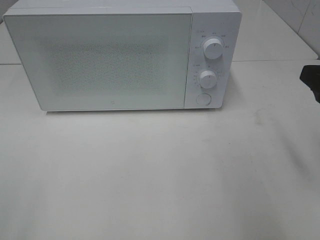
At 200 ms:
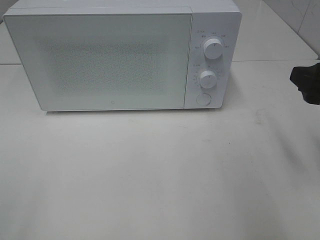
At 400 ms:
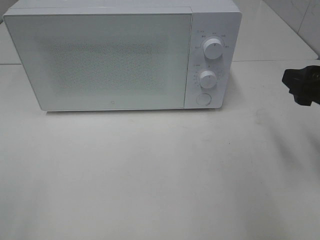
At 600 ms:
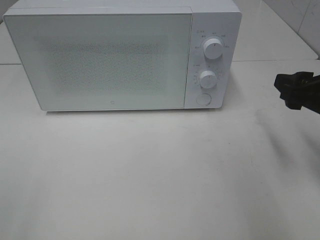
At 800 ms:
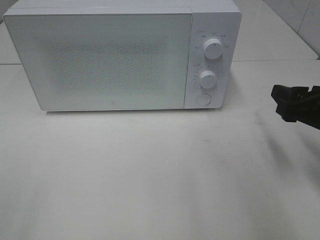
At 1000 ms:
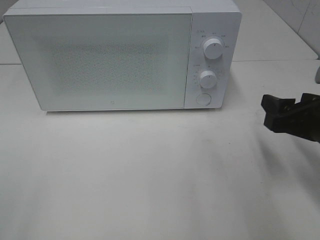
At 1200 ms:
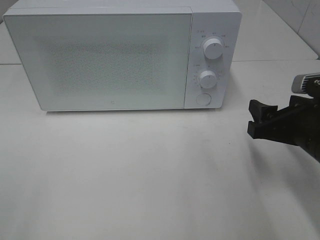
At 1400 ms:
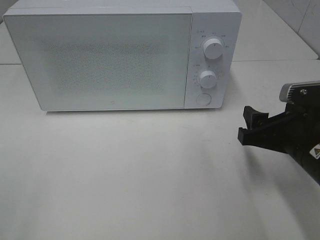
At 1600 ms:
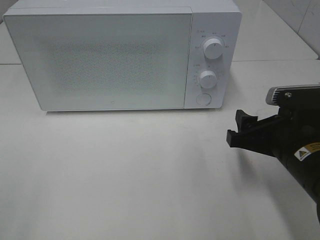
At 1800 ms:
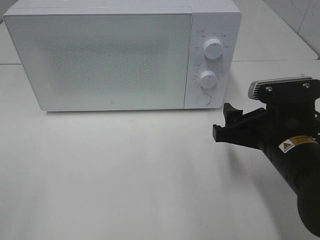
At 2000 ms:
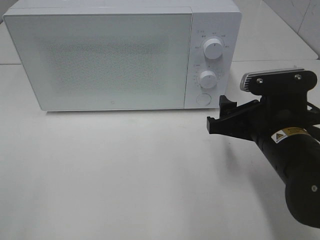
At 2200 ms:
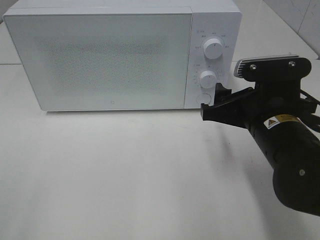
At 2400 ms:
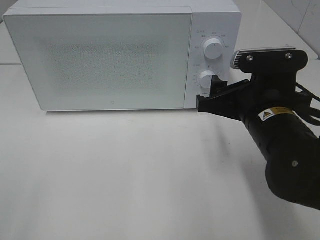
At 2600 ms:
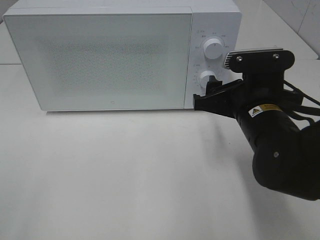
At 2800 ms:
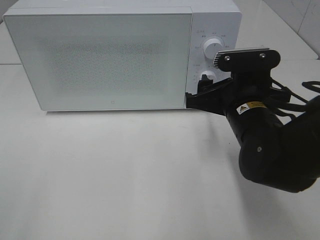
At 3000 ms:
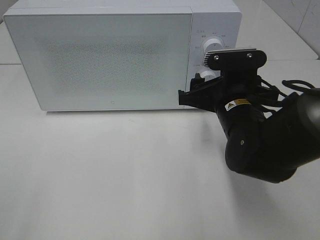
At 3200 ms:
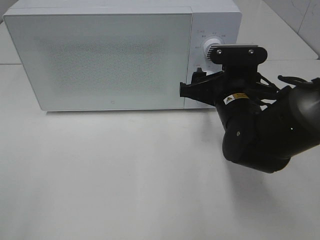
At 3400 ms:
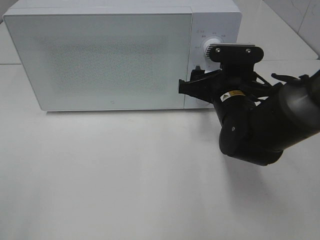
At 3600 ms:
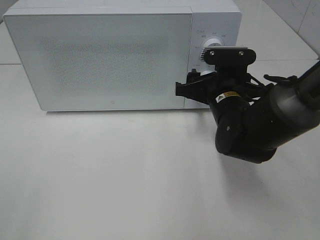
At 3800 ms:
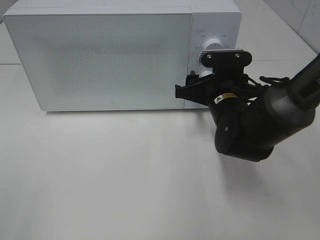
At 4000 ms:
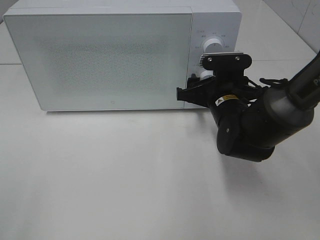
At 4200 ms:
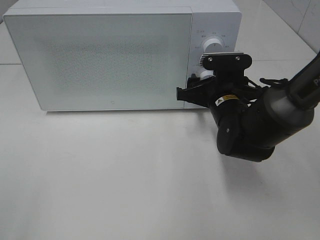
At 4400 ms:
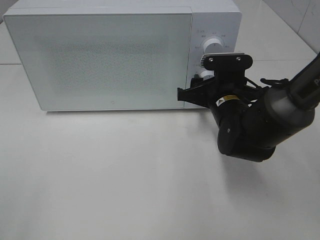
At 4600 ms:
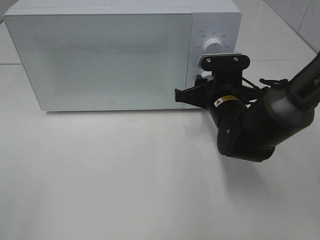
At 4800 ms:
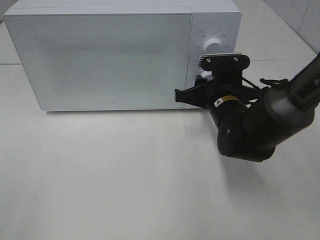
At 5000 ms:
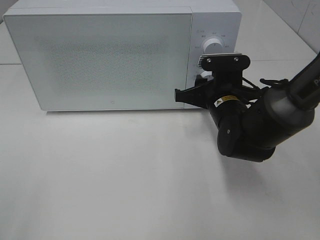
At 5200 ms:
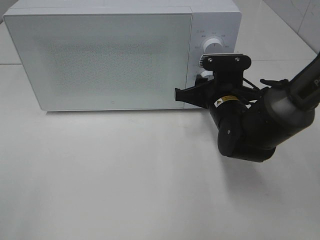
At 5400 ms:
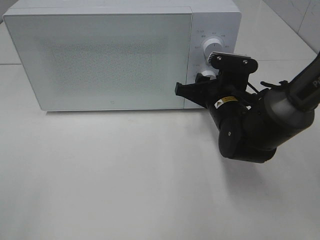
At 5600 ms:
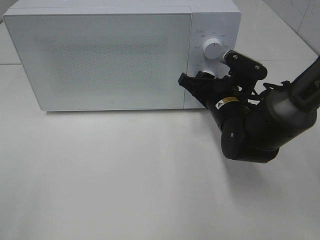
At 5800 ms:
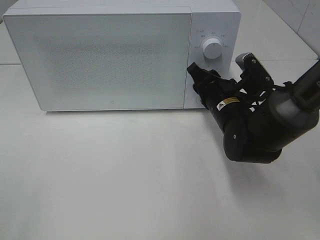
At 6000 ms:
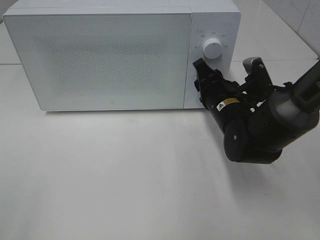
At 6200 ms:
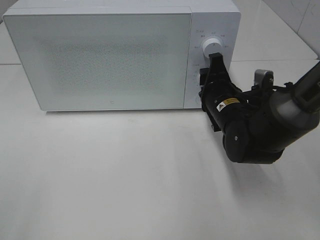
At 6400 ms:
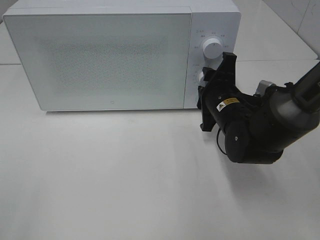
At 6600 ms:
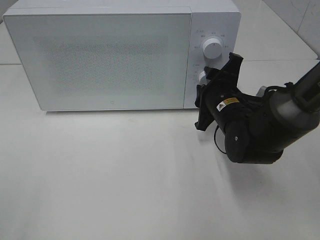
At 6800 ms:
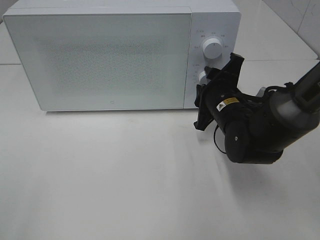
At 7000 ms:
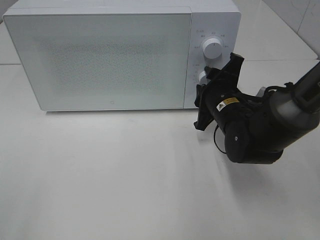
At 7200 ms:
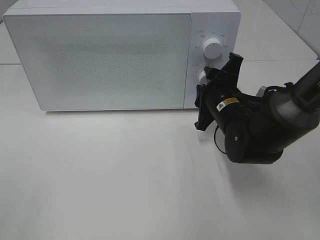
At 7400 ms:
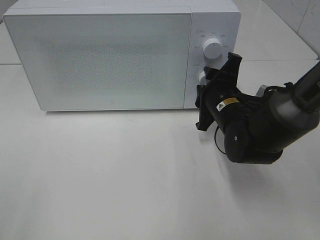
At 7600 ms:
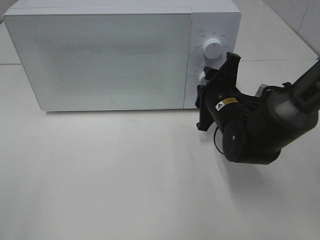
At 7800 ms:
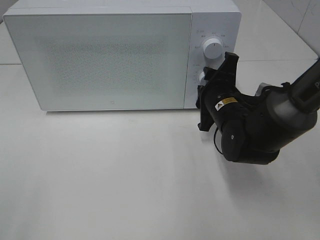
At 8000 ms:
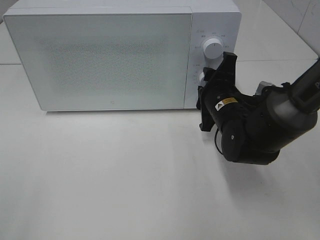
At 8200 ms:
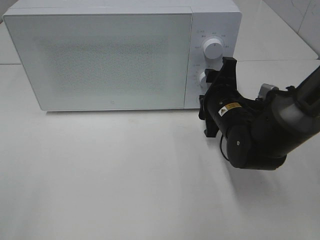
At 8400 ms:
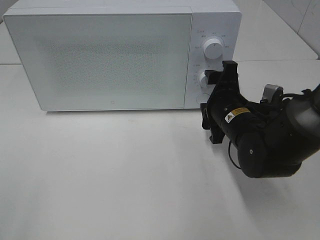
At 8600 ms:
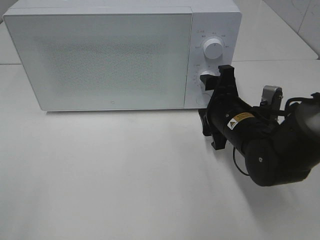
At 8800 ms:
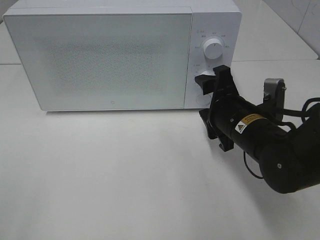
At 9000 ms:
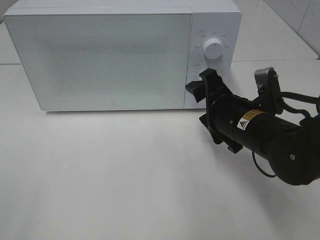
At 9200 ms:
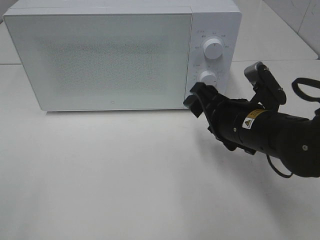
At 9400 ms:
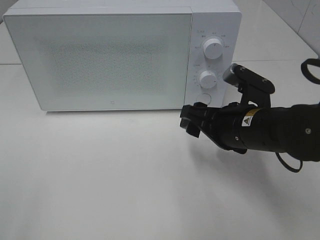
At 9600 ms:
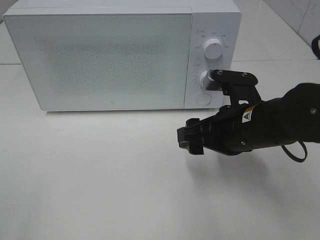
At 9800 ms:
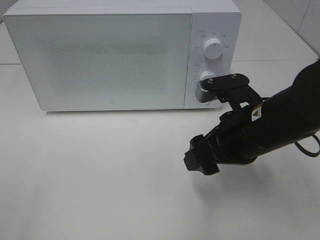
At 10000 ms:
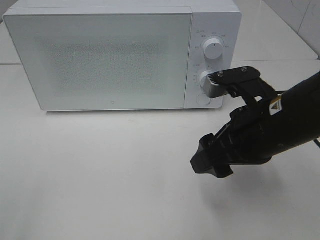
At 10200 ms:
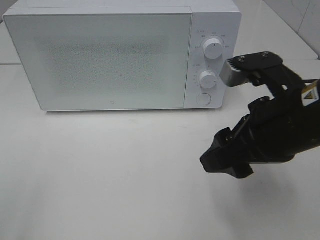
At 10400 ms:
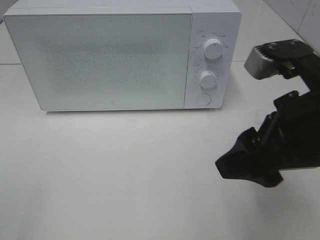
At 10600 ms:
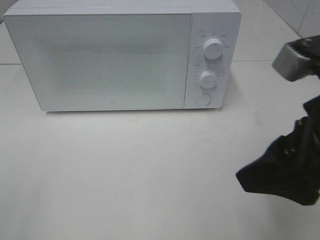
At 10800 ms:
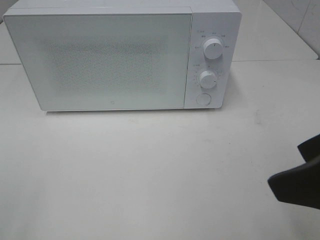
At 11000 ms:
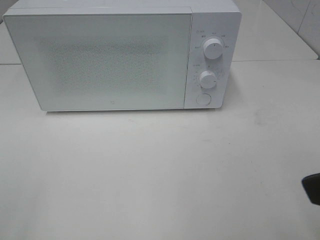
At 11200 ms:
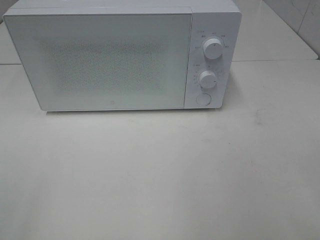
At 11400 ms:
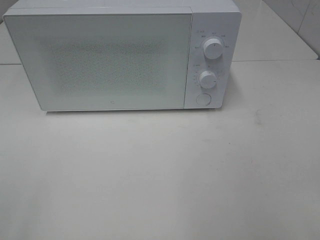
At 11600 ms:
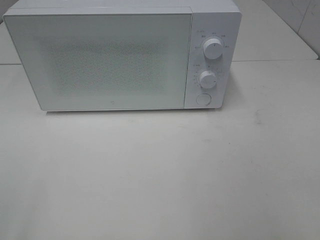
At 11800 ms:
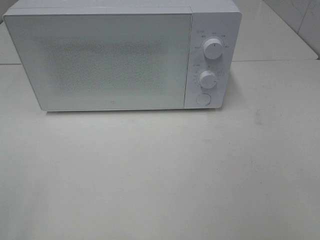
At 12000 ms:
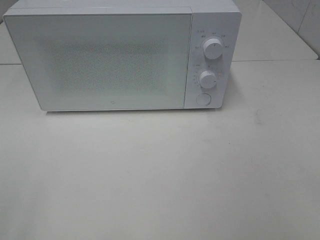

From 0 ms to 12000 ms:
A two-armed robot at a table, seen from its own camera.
Task of the whole recording: Heat the burger.
Step, from 0 ms to 8200 ms: Right hand: twist timer button.
From 0 ms to 1600 ms: The right gripper moves downward and to the left, some 10 cm.
From 1600 ms to 3000 ms: The right gripper shifts roughly 10 cm forward and to the left.
From 3000 ms to 4400 ms: The right gripper moves forward, approximately 5 cm.
From 7600 ms to 9000 ms: The right gripper moves backward, roughly 5 cm.
From 9000 ms to 10400 ms: The right gripper shifts approximately 15 cm upward and backward.
From 10400 ms to 12000 ms: The right gripper moves backward and to the right, about 20 cm.

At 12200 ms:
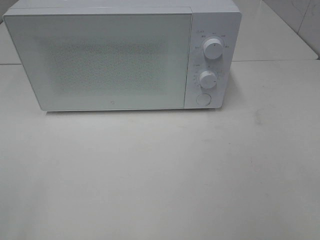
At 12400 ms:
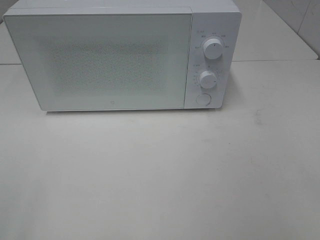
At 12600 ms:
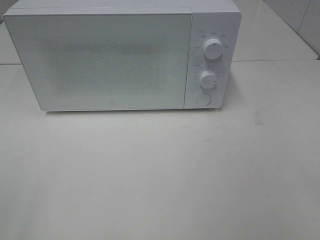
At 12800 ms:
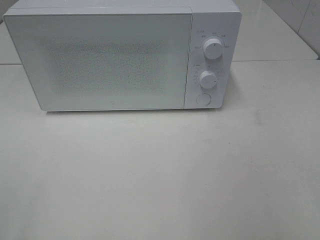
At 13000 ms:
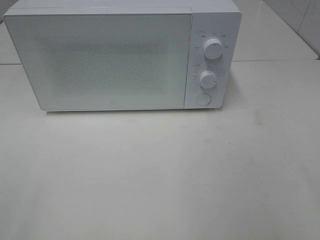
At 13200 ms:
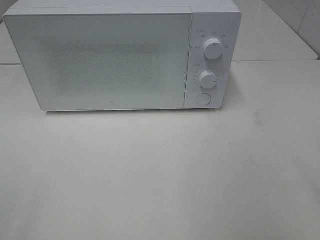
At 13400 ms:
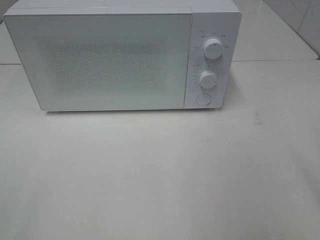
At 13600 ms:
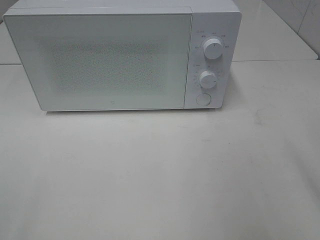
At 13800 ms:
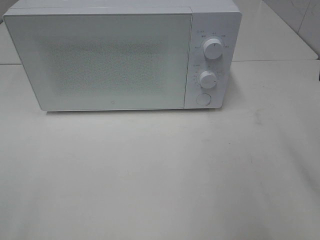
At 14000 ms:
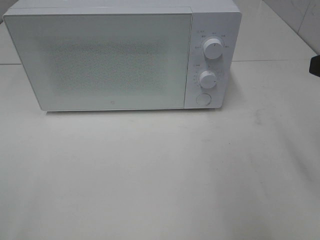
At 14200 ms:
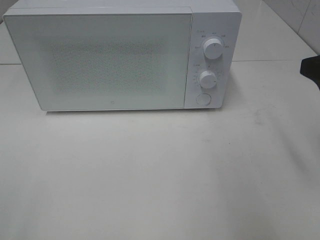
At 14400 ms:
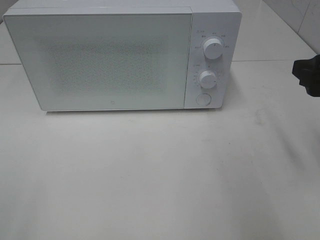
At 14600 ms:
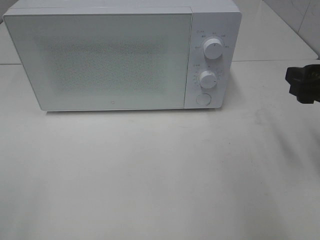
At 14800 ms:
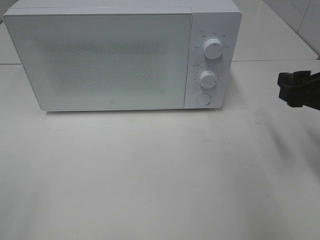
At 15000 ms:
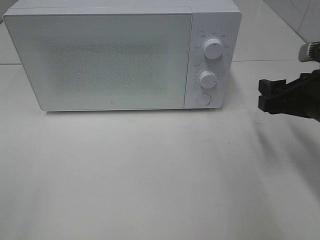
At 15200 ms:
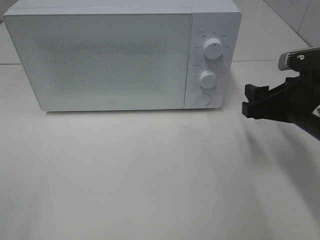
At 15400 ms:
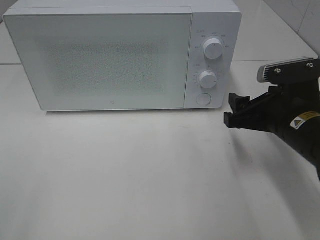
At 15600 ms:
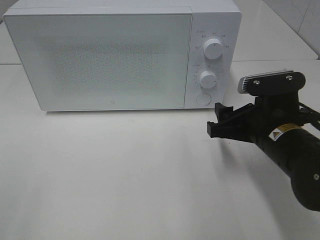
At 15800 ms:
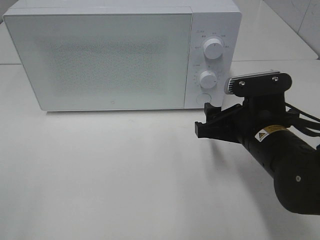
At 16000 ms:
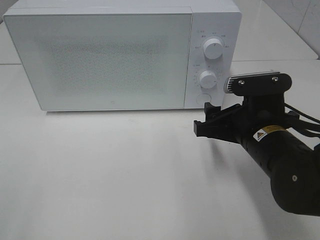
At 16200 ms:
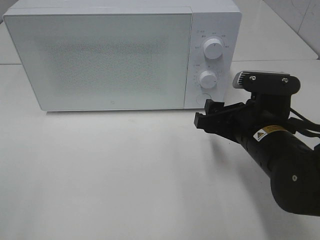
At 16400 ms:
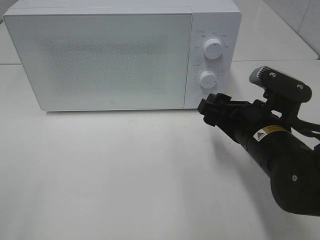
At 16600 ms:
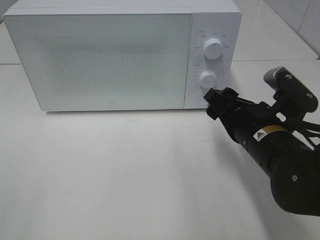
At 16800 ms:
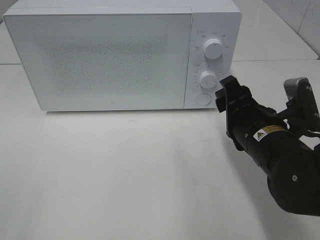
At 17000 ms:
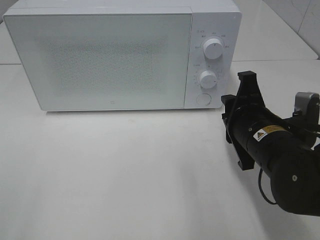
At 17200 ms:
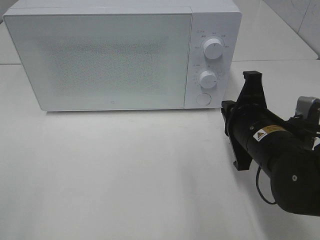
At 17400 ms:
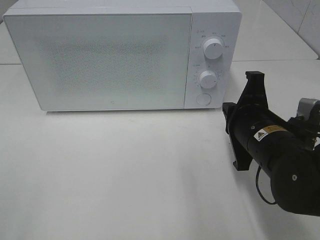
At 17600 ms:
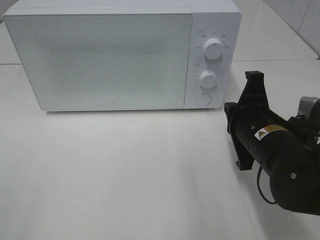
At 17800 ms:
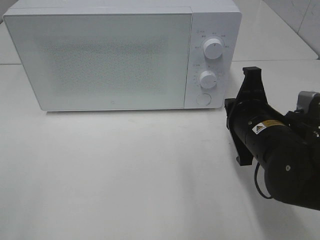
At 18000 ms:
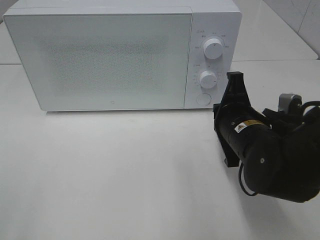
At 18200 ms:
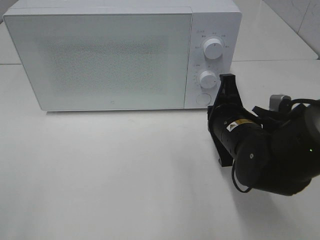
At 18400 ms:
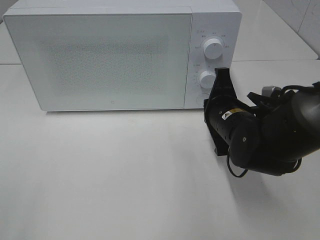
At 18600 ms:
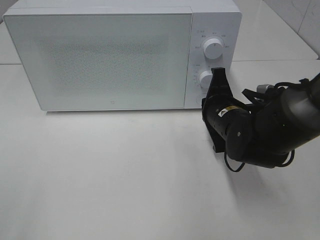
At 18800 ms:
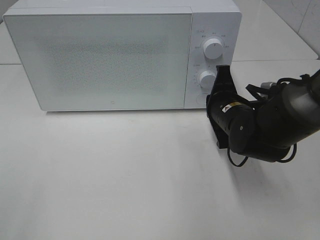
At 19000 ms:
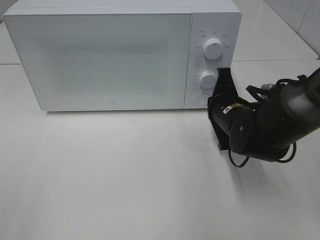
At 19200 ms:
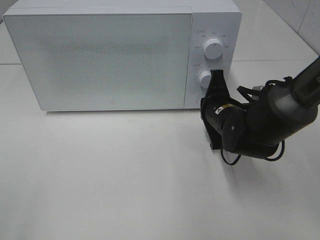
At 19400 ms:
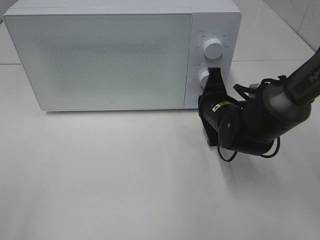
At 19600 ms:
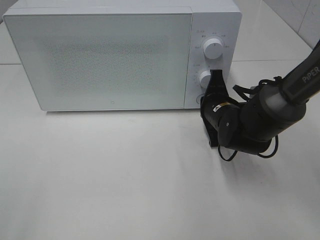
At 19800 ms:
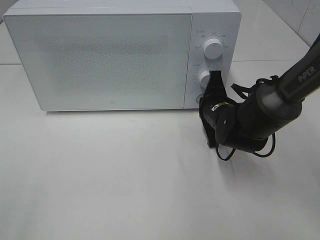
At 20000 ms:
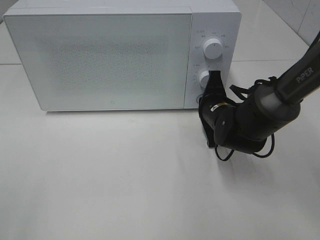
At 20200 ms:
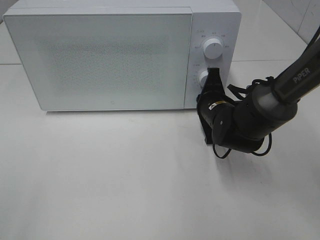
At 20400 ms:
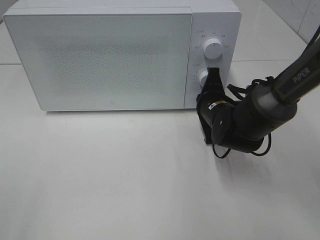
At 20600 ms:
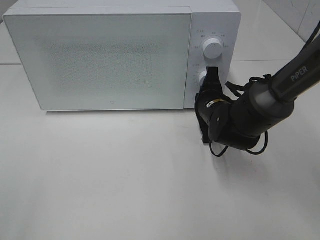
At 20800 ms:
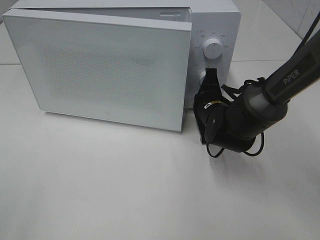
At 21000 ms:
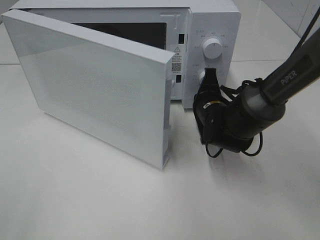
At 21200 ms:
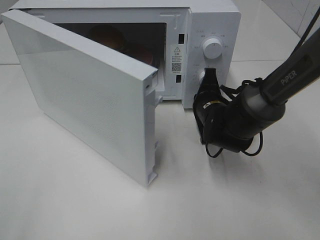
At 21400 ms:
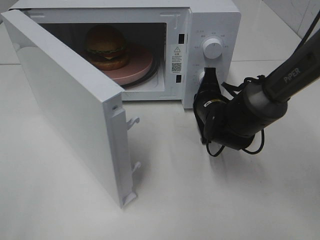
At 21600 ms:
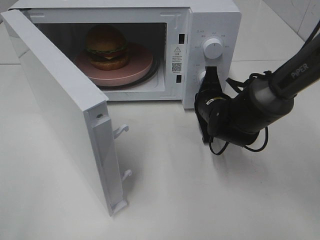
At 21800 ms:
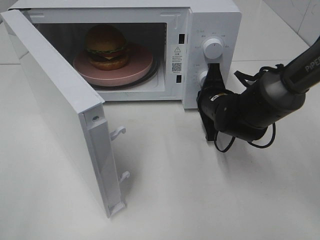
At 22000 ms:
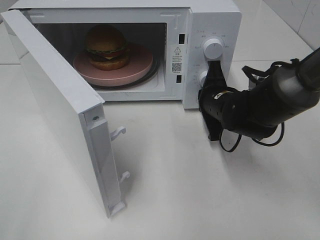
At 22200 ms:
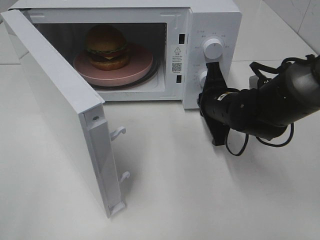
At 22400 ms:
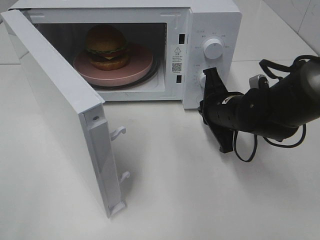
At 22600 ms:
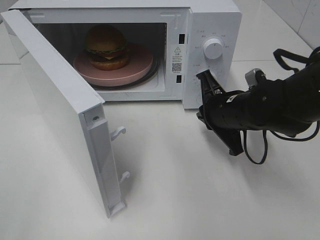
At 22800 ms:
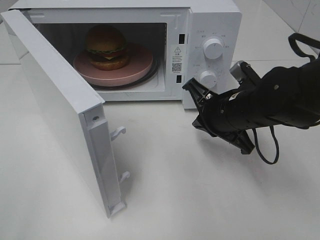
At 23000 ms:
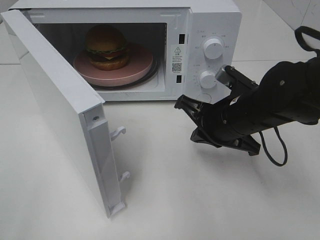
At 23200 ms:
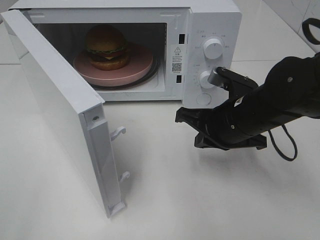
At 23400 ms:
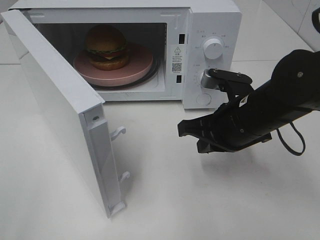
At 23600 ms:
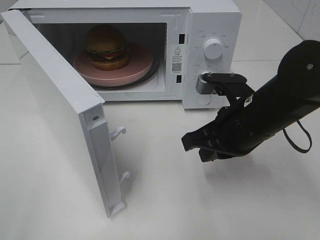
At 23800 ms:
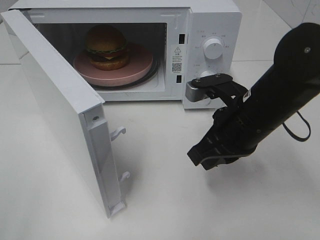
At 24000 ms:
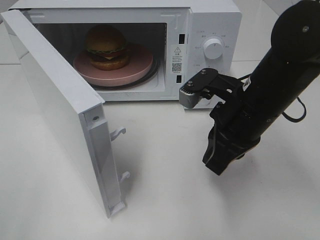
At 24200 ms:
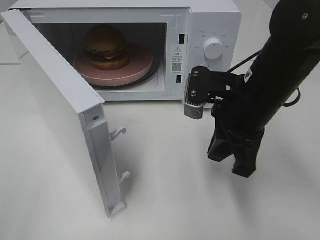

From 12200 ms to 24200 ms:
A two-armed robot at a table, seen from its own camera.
Task of the whole recording: Heat the burger.
Step, from 12200 ms to 22000 ms: Right hand: press the switch.
From 13800 ms to 15200 ms: The right gripper shifts roughly 15 cm downward and forward.
From 15200 ms to 16600 ms: The right gripper heads to the left, covering some 5 cm.
From 16600 ms to 18200 ms: The right gripper closes its fingers.
From 18200 ms to 19800 ms: The right gripper moves forward, approximately 10 cm.
From 21200 ms to 22600 ms: The right gripper moves backward and upward, approximately 10 cm.
From 22600 ms to 24200 ms: The right gripper shifts approximately 5 cm upward.
